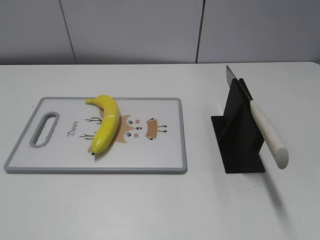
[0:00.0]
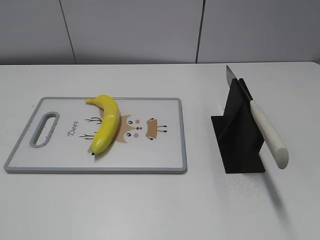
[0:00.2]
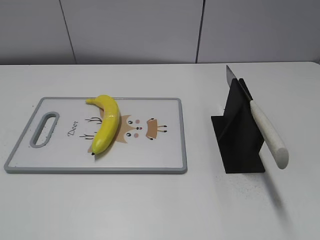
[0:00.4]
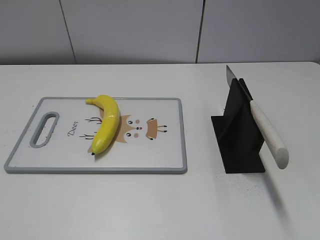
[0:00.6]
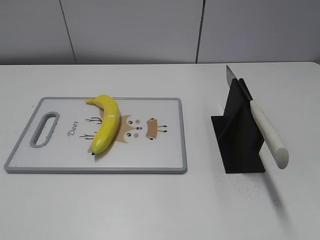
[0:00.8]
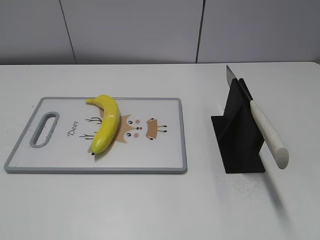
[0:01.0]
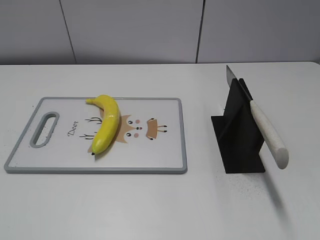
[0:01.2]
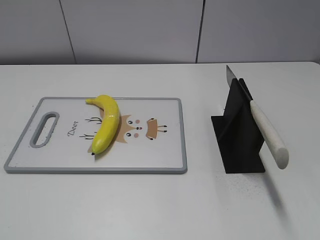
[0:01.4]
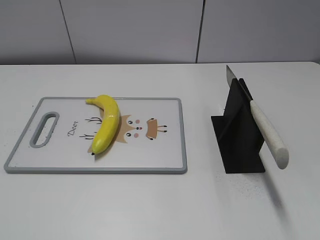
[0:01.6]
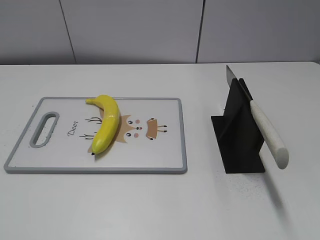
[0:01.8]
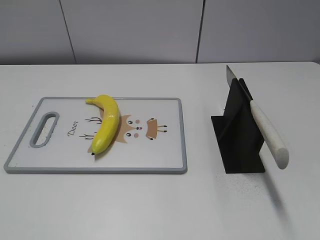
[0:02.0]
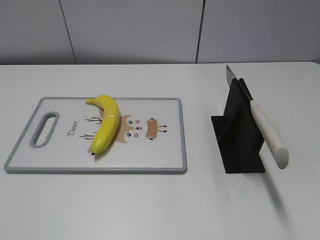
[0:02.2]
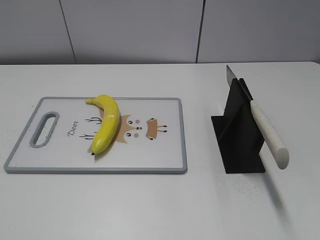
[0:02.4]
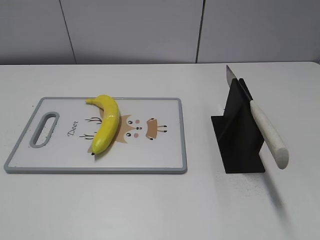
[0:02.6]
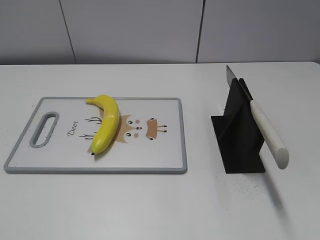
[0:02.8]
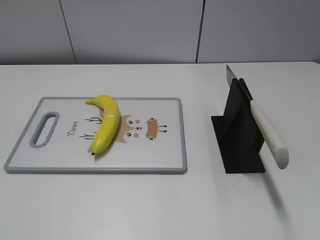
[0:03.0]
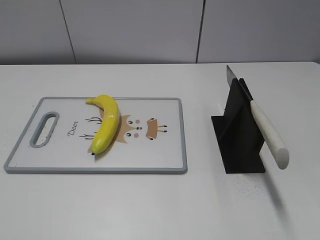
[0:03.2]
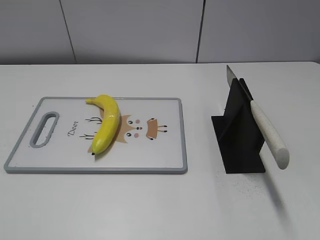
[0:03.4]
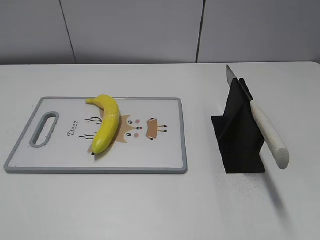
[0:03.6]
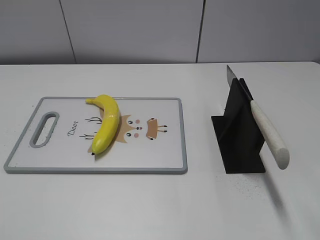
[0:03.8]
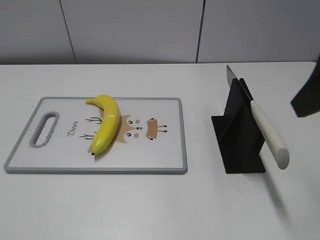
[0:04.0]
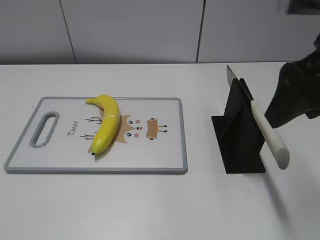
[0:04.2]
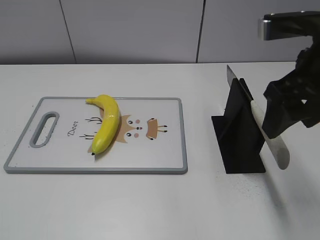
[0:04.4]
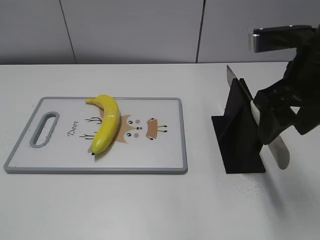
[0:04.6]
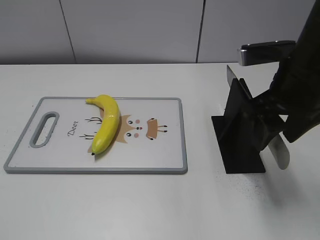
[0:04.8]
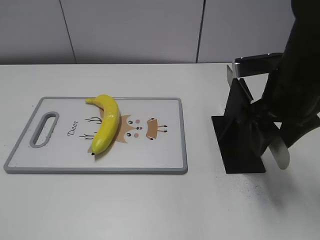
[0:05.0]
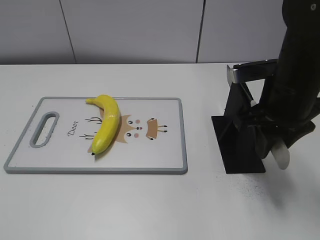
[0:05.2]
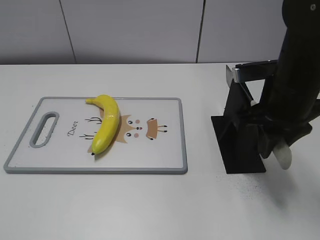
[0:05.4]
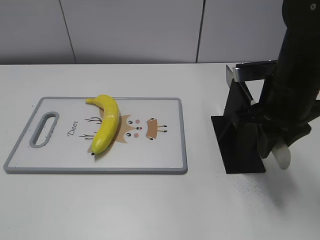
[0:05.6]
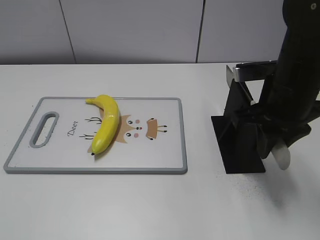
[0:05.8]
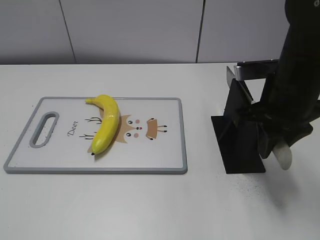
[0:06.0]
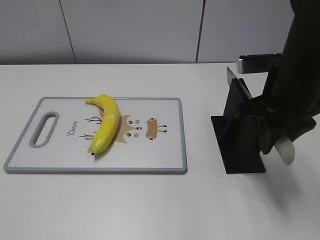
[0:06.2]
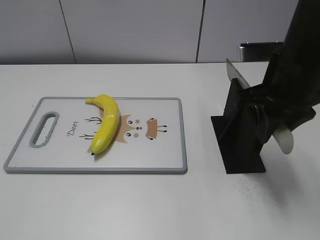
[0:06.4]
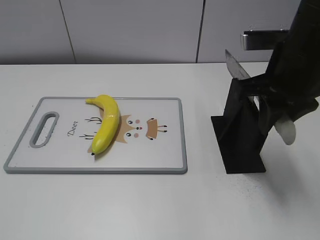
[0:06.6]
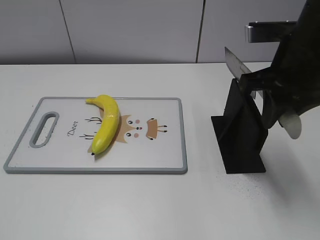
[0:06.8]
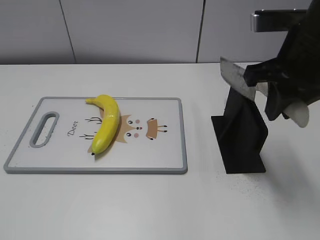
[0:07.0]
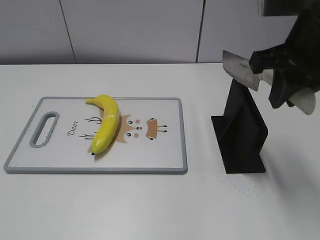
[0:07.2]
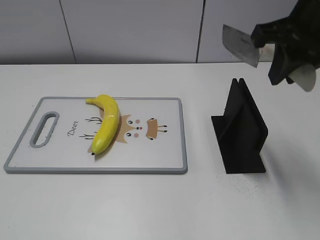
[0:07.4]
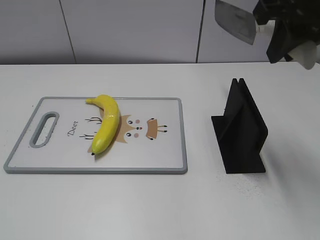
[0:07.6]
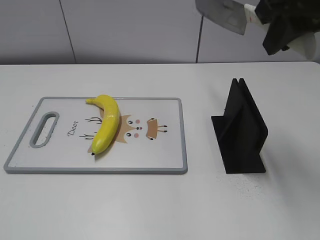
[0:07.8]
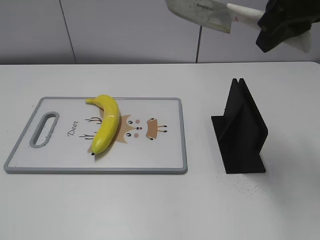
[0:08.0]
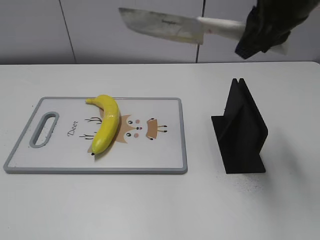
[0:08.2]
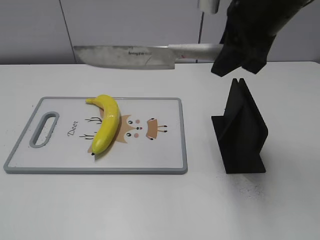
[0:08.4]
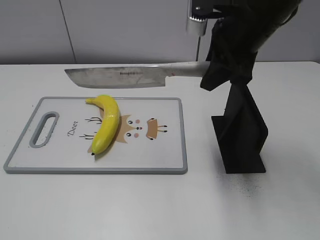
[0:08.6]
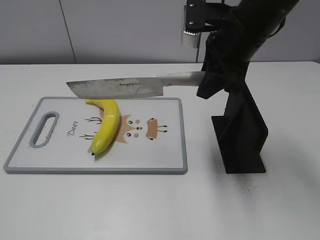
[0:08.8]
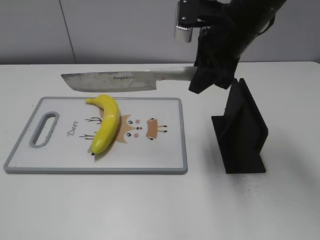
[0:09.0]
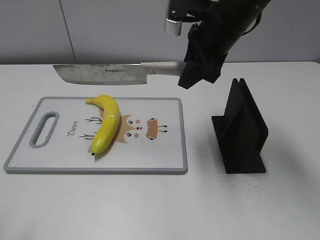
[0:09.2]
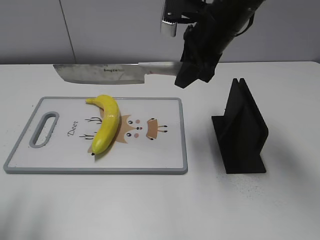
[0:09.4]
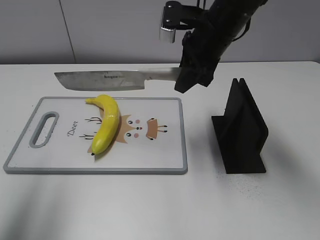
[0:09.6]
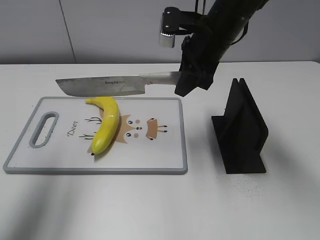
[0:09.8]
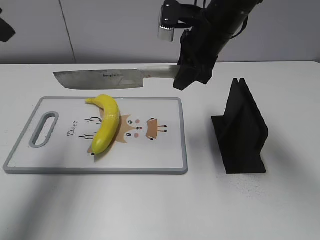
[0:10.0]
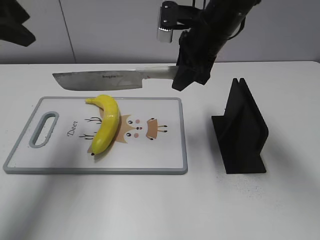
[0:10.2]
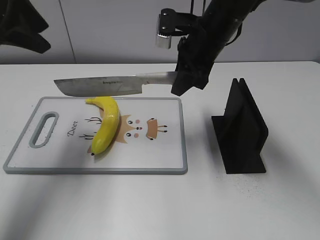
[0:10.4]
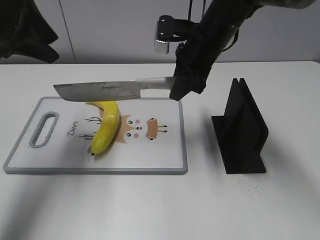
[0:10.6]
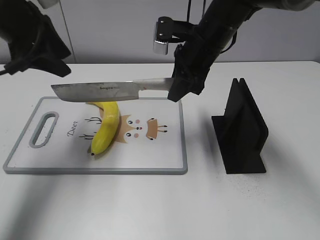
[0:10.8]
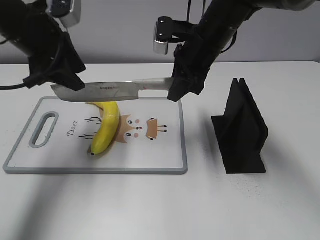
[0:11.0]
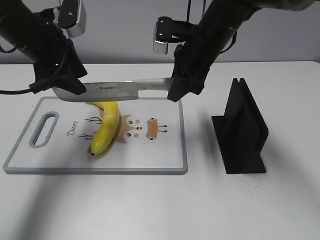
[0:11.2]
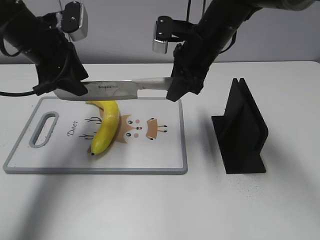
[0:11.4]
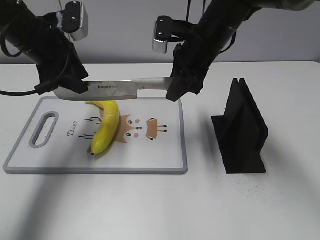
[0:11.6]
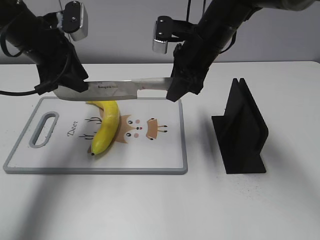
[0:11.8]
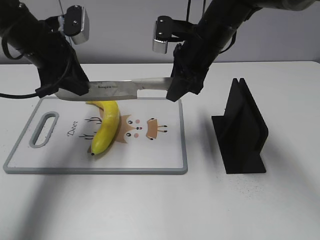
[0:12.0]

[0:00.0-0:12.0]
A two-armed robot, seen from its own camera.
Task of the whole recording: cut plastic banana.
Step, 0:00.0 to 0:07.0: Grab the knife handle with your right hand.
0:03.0 to 0:04.4: The right gripper travels forward and to the left by about 20 cm.
0:04.4 to 0:06.0: The right gripper travels downward by some 10 cm, and closes its fingers.
0:06.0 to 0:07.6: The right gripper goes about 15 cm upward.
0:07.6 to 0:09.0: The right gripper travels downward, forward and to the left by some 15 cm.
0:09.0 to 0:10.4: The right gripper ends up roughly 5 cm from where it was. Meanwhile the left gripper travels forward by about 30 cm.
0:10.4 to 0:12.0: The left gripper moves downward, about 10 cm, and closes.

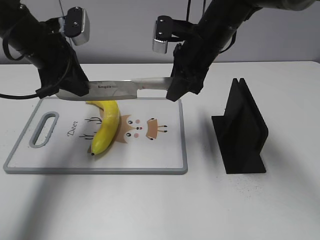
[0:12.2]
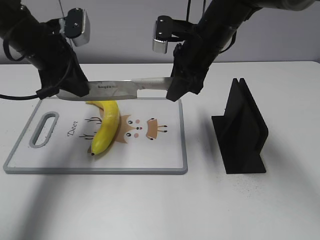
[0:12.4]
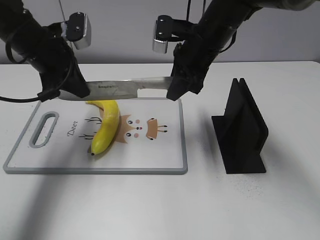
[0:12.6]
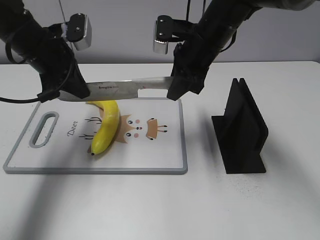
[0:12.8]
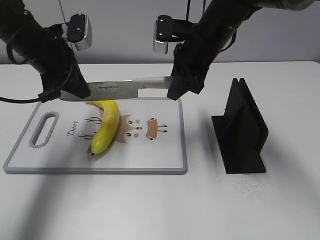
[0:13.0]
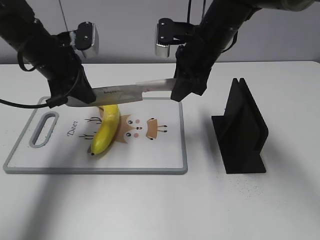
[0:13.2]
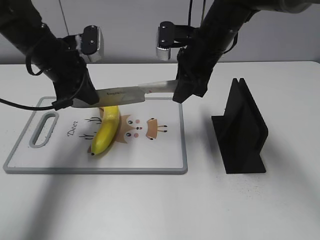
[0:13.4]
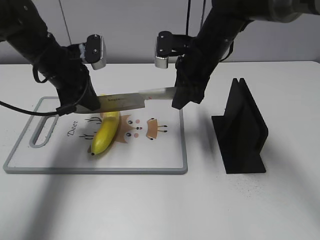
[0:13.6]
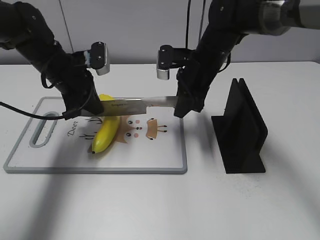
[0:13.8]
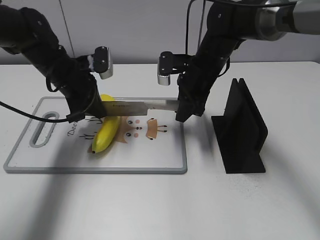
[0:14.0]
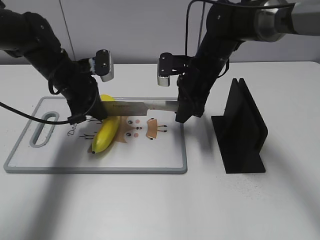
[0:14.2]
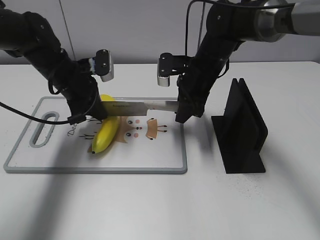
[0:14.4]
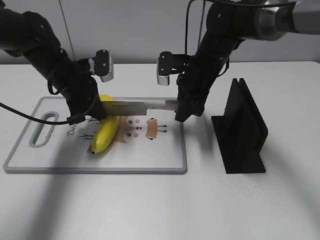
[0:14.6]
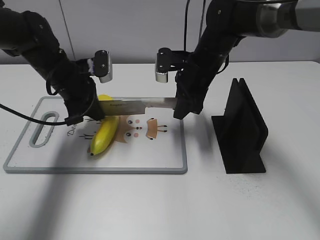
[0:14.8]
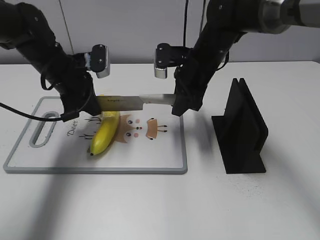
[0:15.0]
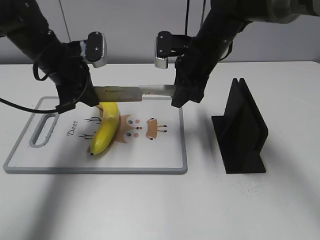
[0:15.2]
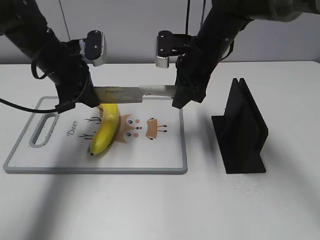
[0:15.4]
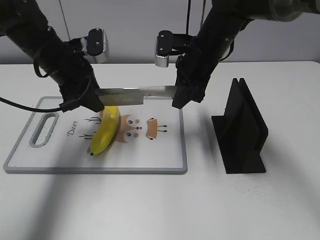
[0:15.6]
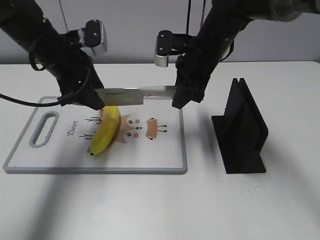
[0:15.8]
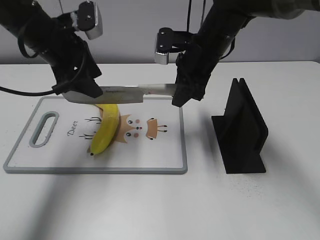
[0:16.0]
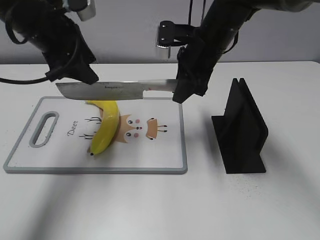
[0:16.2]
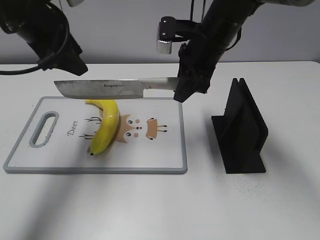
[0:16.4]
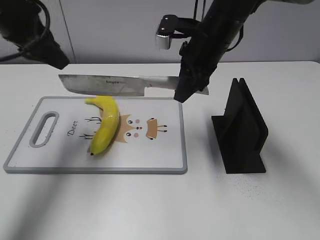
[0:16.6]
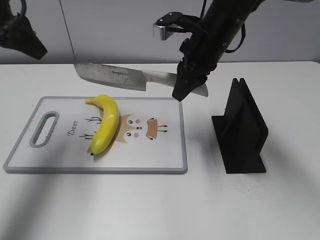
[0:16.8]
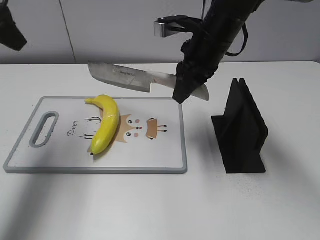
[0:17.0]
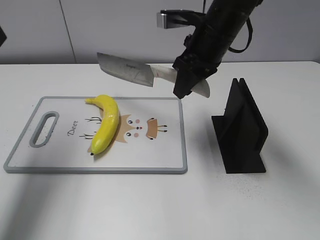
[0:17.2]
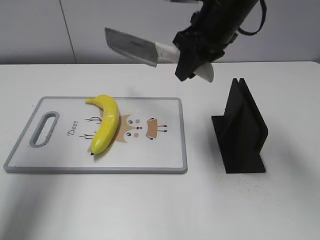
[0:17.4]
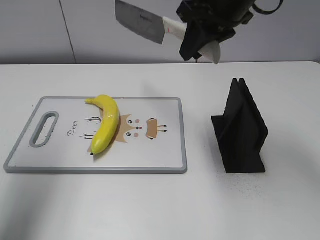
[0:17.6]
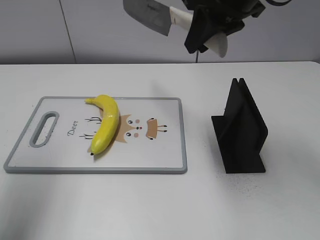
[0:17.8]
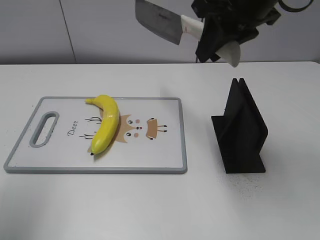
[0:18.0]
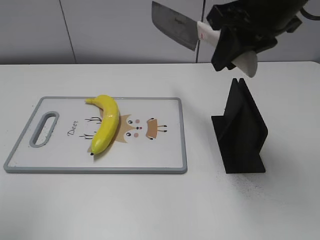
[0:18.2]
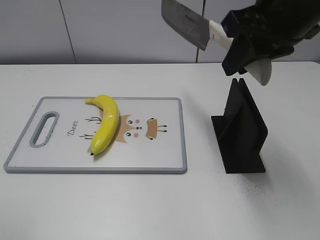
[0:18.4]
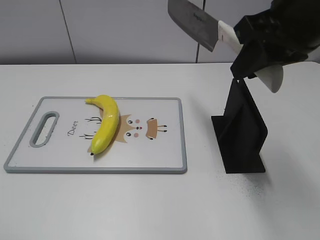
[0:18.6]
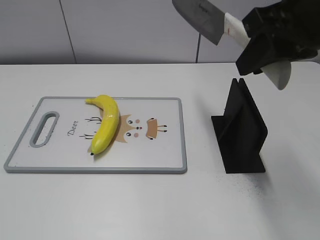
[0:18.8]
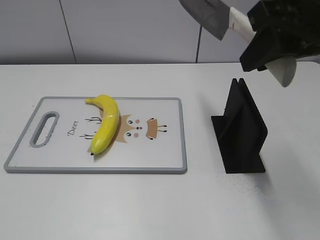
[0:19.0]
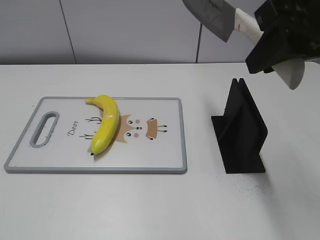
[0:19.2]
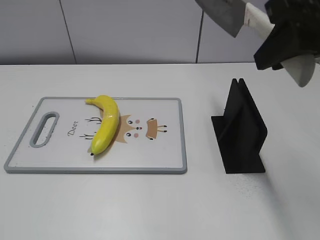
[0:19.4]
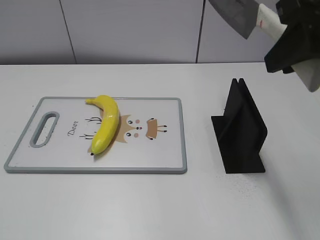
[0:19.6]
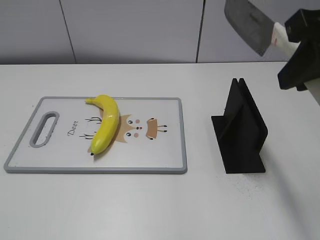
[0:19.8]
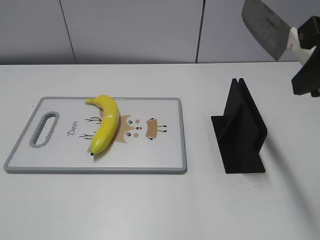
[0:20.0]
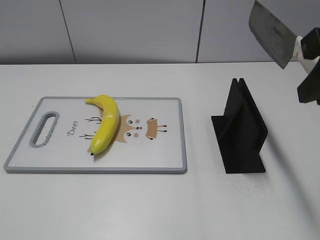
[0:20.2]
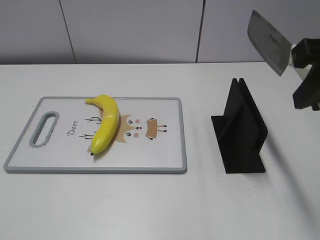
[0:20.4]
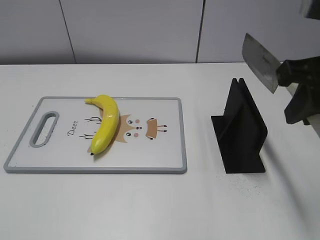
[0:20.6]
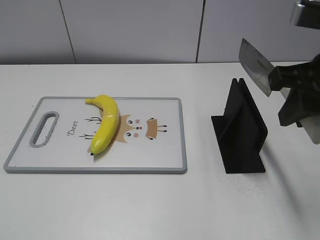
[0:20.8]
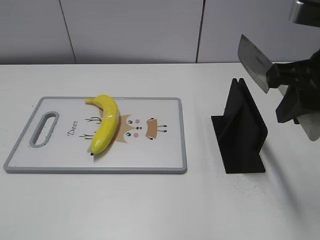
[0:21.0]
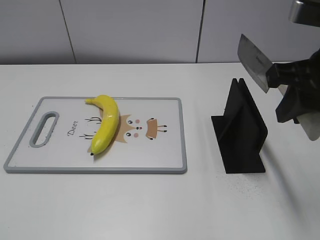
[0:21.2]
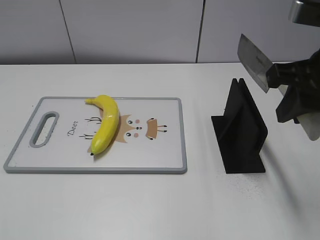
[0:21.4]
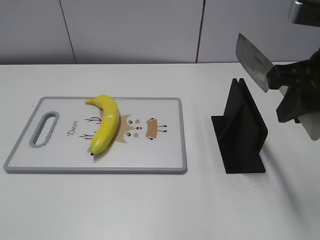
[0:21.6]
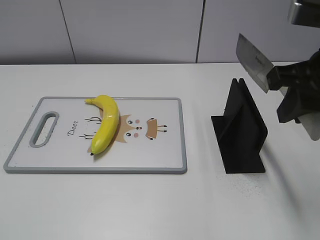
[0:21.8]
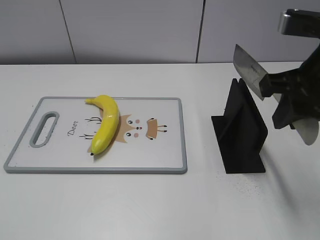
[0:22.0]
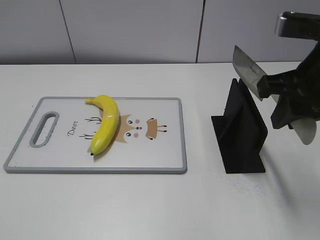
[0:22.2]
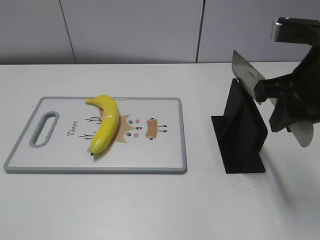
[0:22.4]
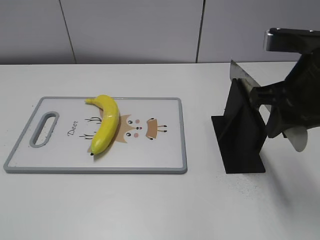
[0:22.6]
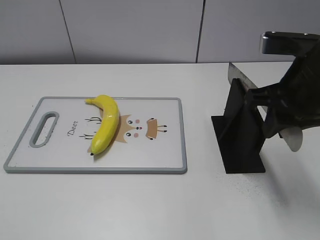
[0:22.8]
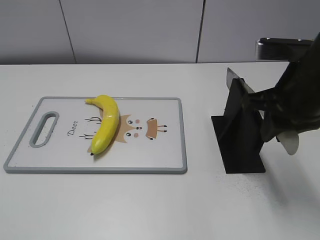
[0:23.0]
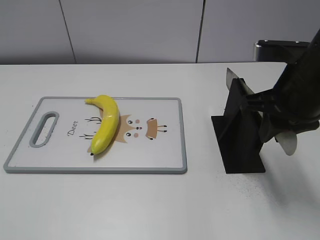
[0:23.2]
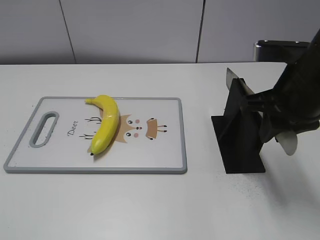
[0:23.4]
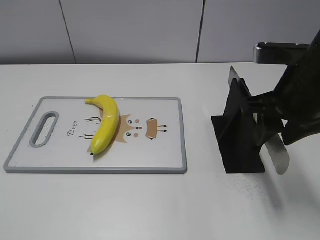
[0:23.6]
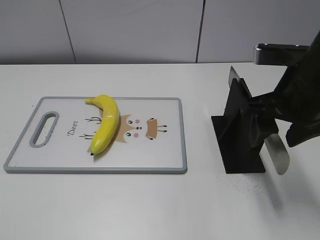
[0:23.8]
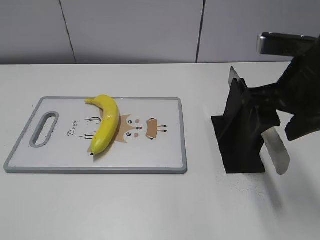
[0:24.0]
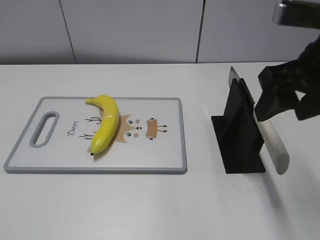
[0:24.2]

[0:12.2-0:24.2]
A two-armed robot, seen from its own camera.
Task of the whole recording: cut plastic banana.
Step, 0:12.2 to 0:15.6: Lift the knife with your right hand.
Step, 0:15.8 to 0:17.4: Cut the banana with your right hand.
Step, 0:17.6 to 0:19.2: Secure the blade with your left hand.
0:12.2 to 0:13.8: Both grippers travel together downward, about 5 cm. The left gripper closes its fingers.
0:13.8 to 0:15.2: The grippers move only a little.
0:15.2 to 0:16.6: The left gripper moves upward, approximately 10 cm, and opens its fingers.
0:16.6 to 0:18.2: The right gripper shifts some 15 cm upward and backward; the left gripper shifts approximately 25 cm backward, to the left and upward.
0:18.2 to 0:19.8: The left gripper is displaced backward and downward by about 20 cm. Meanwhile the right gripper goes about 10 cm backward and to the right.
0:19.8 to 0:21.2: The right gripper shifts roughly 5 cm downward.
0:21.2 to 0:22.6: The grippers move only a little.
0:22.6 to 0:24.2: The right gripper opens.
